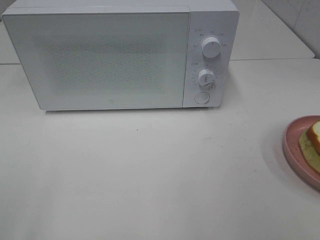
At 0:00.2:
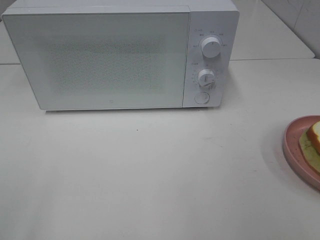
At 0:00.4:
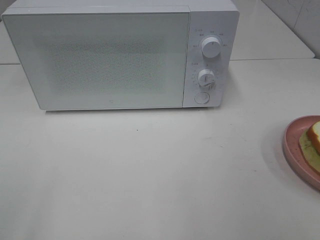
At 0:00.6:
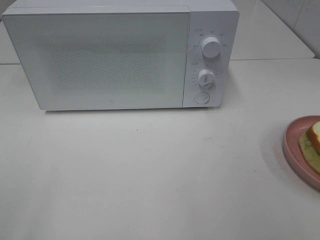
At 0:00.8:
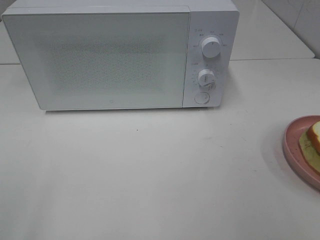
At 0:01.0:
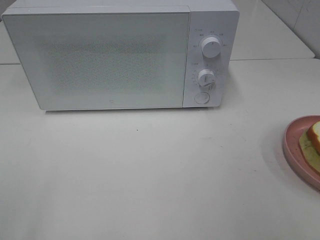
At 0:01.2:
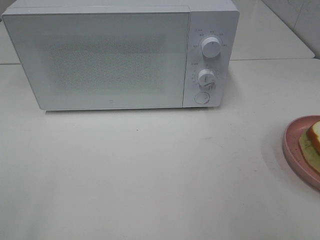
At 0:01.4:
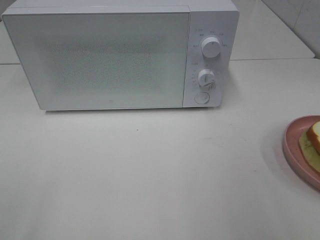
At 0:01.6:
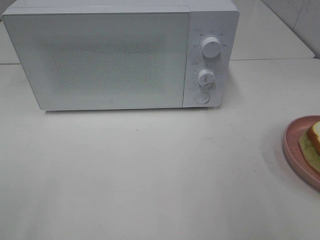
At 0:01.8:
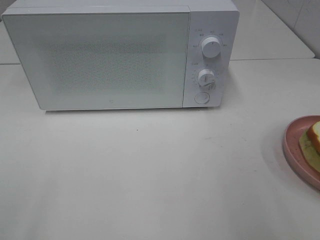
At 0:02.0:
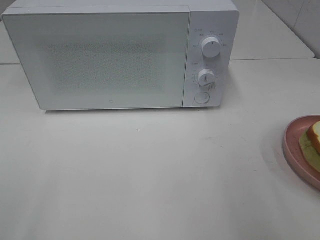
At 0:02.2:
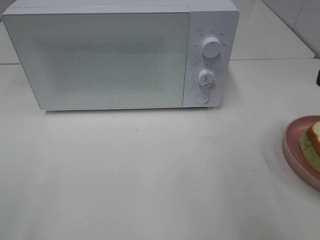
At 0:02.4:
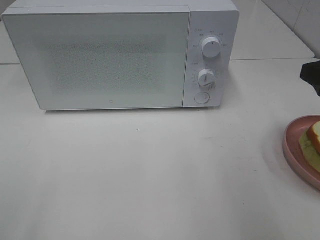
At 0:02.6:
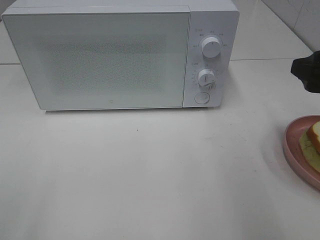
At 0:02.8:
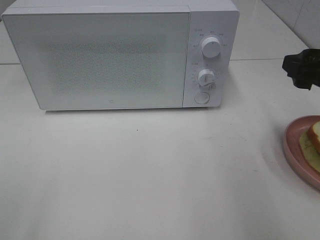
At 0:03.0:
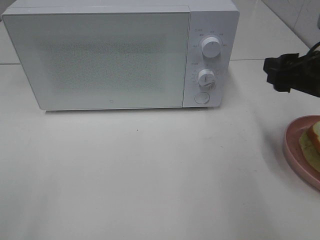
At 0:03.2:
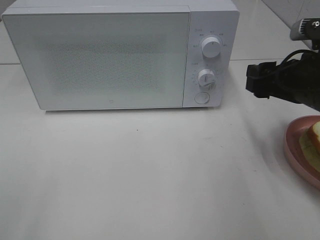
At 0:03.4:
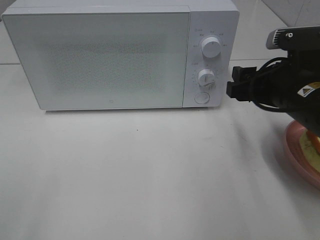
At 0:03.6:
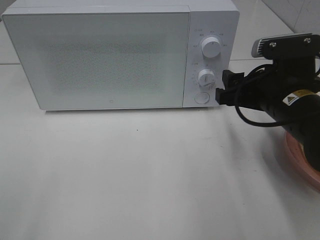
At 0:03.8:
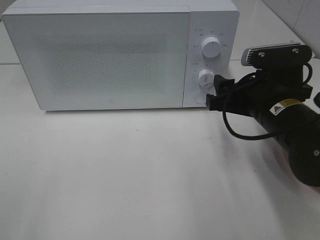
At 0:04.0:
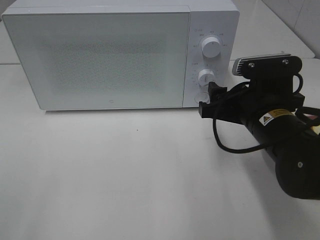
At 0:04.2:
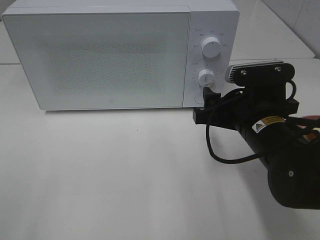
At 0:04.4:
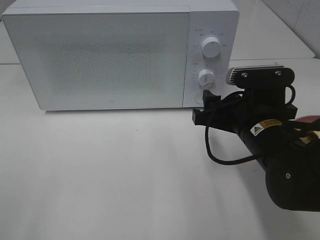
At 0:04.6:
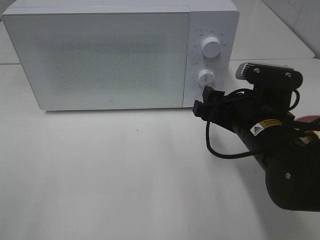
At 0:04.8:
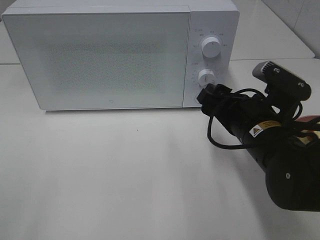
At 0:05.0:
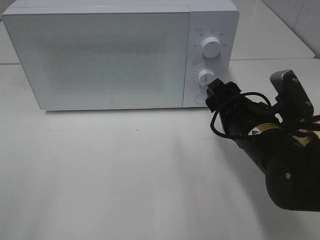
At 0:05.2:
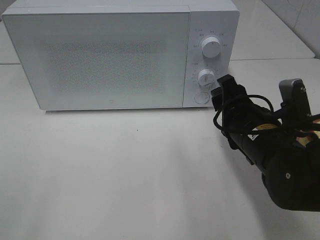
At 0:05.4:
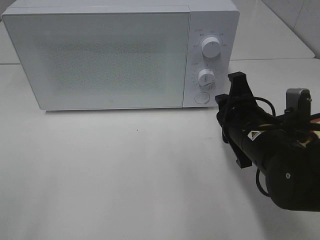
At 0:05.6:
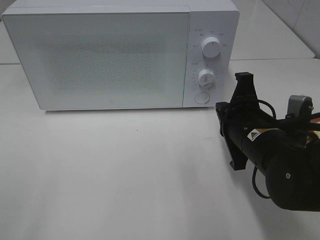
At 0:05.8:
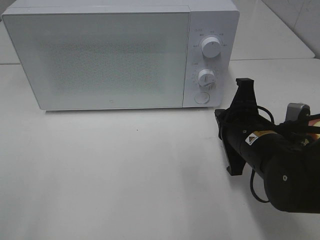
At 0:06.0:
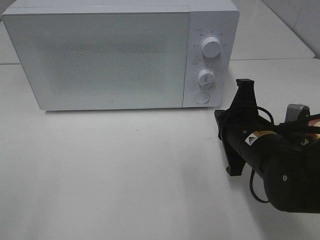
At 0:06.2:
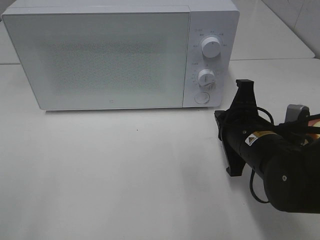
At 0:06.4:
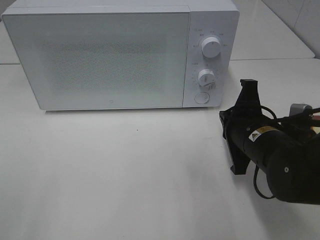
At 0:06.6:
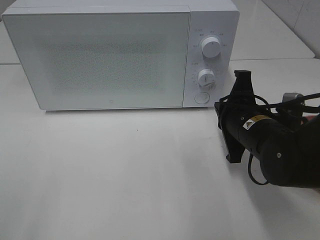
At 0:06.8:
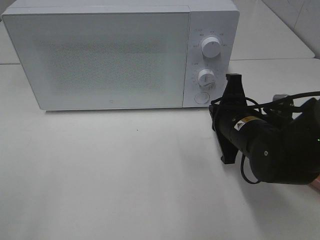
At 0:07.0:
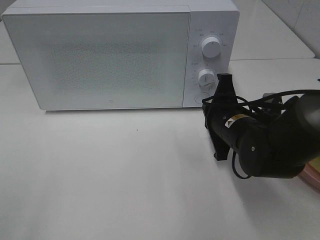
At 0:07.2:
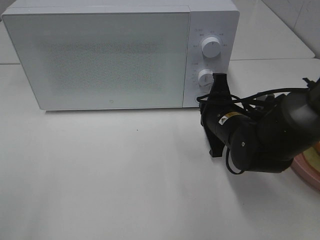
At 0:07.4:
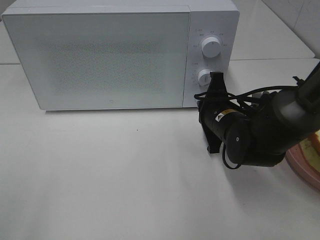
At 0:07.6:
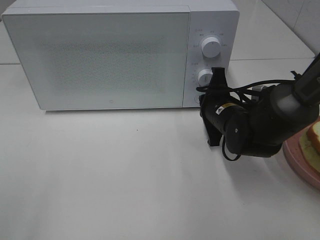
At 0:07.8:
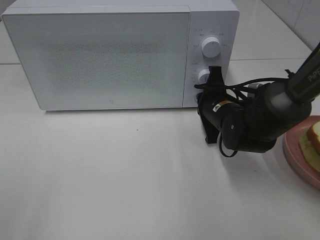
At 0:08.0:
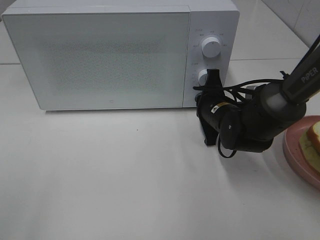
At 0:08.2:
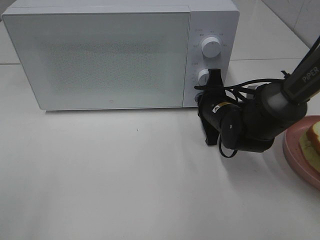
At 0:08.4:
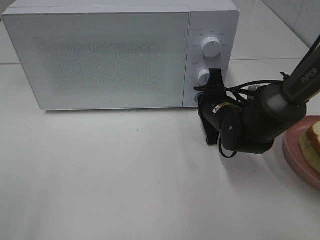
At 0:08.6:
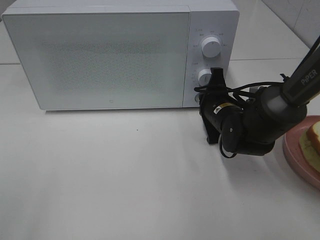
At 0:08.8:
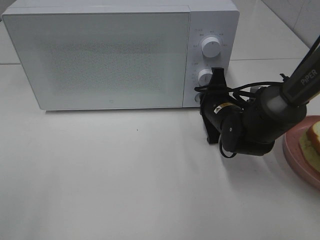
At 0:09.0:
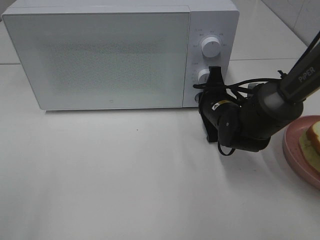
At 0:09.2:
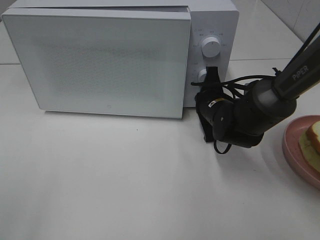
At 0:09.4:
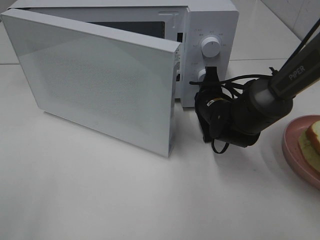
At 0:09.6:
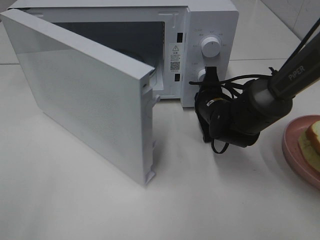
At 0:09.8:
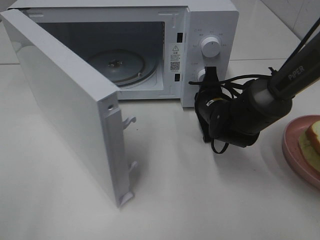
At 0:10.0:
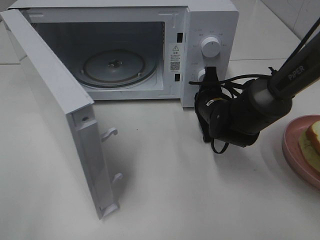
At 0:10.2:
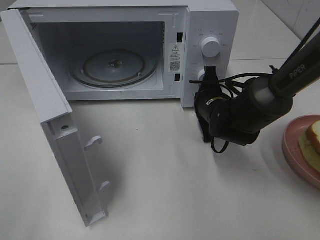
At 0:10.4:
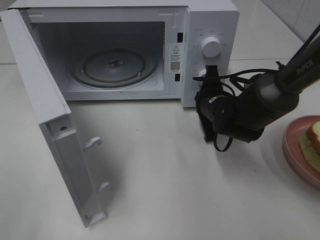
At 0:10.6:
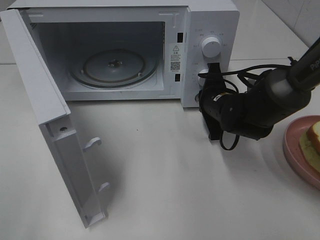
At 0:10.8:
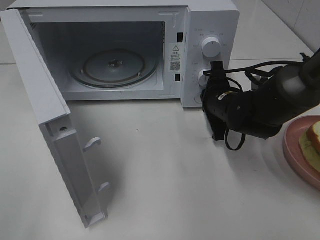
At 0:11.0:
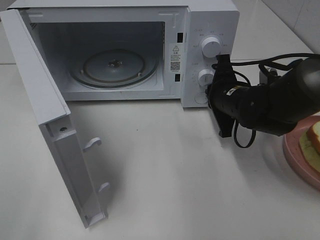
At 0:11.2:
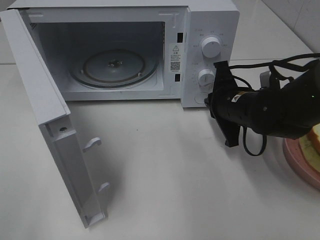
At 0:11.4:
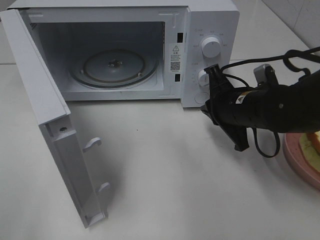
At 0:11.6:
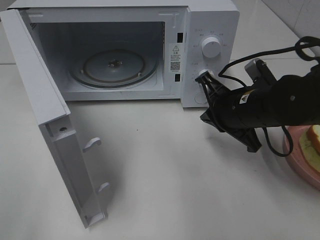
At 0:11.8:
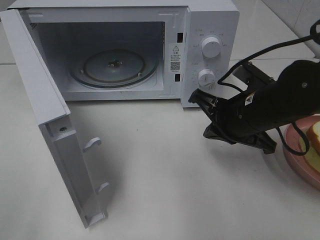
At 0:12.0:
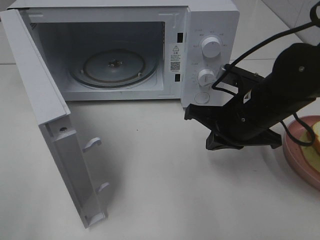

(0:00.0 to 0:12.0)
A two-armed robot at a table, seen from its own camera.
Task of the whole recording: Heat Sandwich.
Step, 0:00.0 - 0:11.0: Right hand: press the switch.
0:01.6 - 0:03.0: The right gripper shifts approximately 15 cm forward and downward.
0:03.0 - 0:04.4: The right gripper heads to the left and downward, covering roughly 10 cm.
0:04.4 - 0:06.0: The right gripper closes its fingers.
0:06.0 - 0:07.6: The right gripper heads forward, covering about 10 cm.
0:07.6 - 0:09.0: The grippers move only a little.
0:10.4 - 0:12.0: The right gripper shifts approximately 10 cm backward and upward.

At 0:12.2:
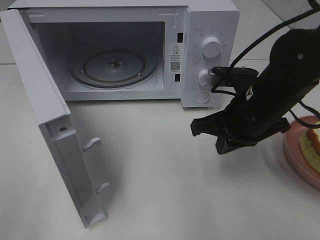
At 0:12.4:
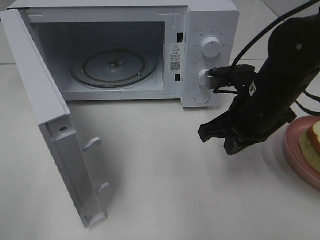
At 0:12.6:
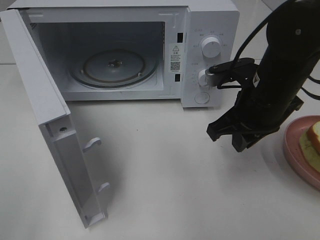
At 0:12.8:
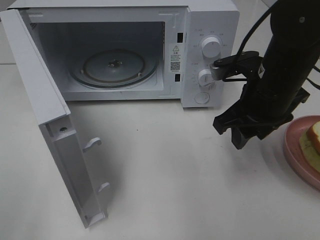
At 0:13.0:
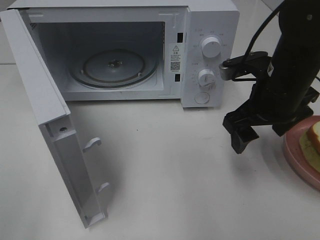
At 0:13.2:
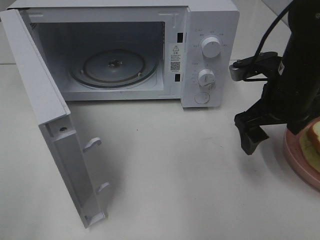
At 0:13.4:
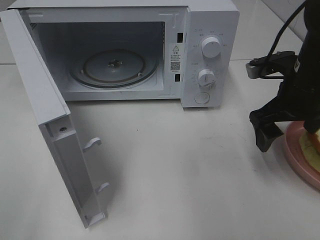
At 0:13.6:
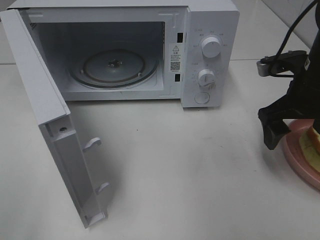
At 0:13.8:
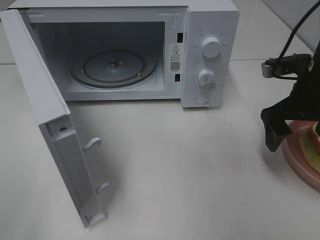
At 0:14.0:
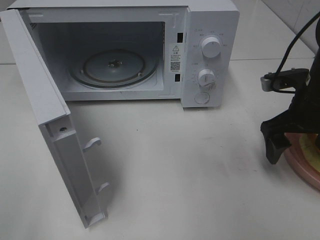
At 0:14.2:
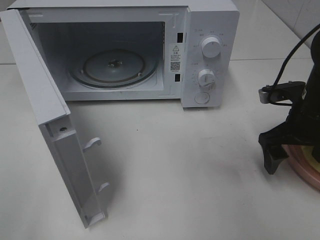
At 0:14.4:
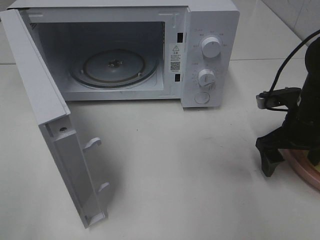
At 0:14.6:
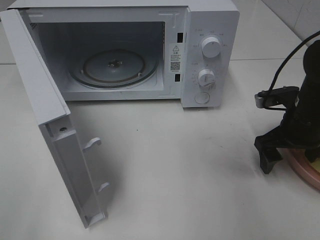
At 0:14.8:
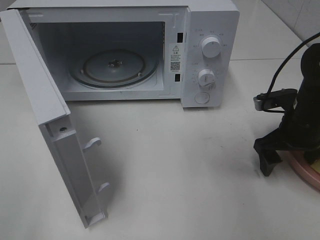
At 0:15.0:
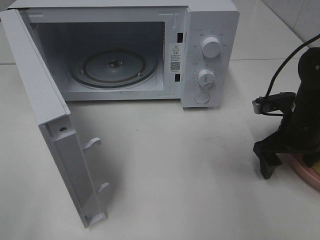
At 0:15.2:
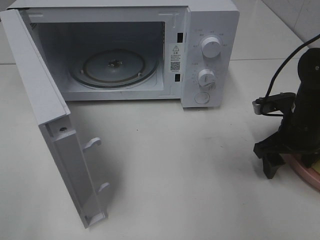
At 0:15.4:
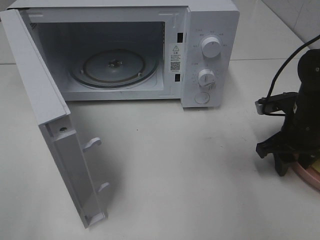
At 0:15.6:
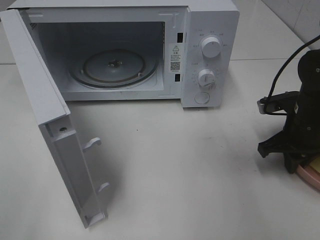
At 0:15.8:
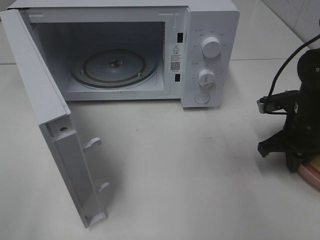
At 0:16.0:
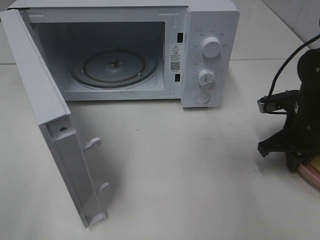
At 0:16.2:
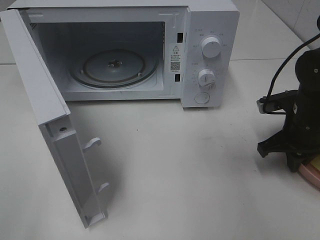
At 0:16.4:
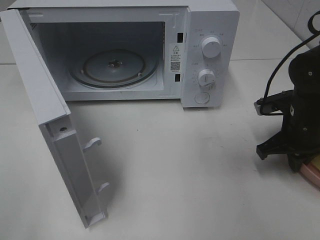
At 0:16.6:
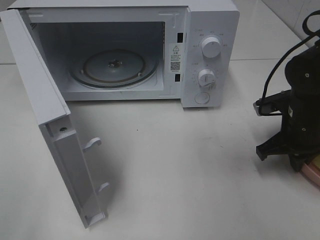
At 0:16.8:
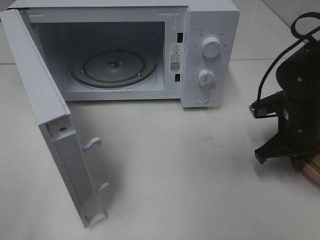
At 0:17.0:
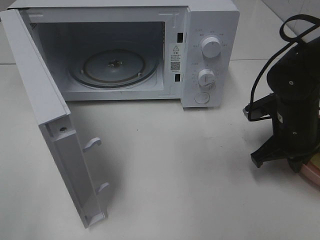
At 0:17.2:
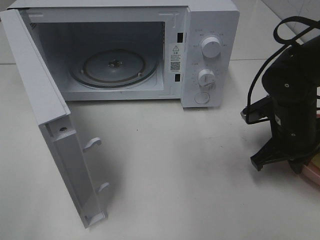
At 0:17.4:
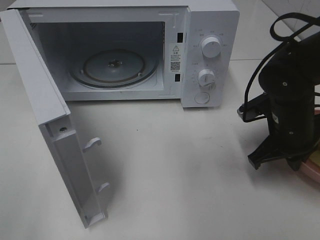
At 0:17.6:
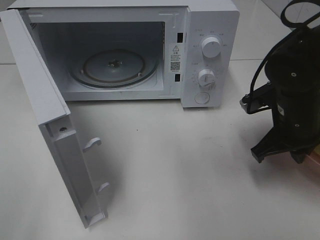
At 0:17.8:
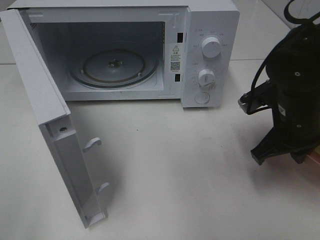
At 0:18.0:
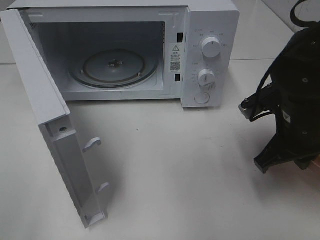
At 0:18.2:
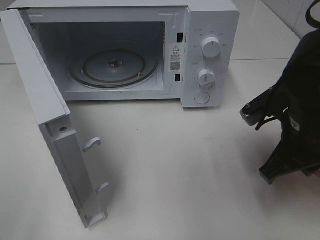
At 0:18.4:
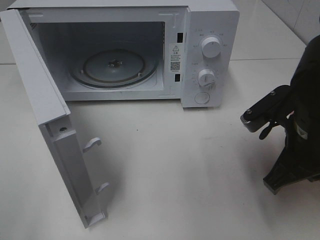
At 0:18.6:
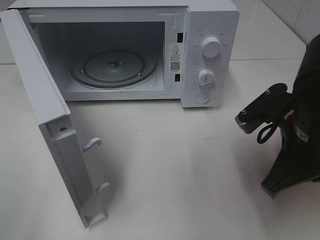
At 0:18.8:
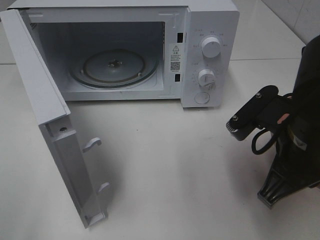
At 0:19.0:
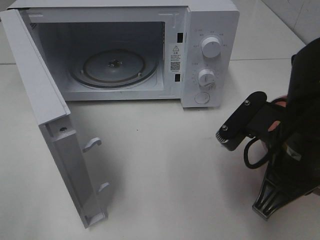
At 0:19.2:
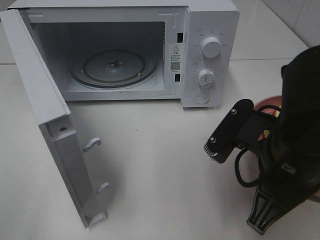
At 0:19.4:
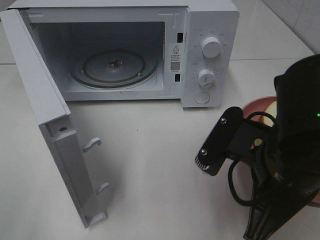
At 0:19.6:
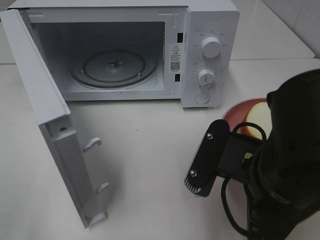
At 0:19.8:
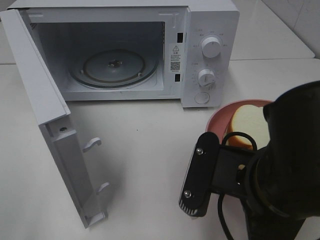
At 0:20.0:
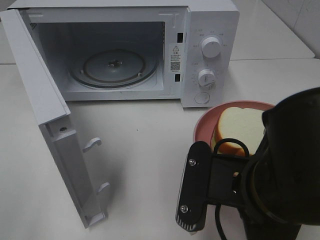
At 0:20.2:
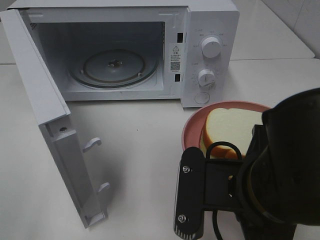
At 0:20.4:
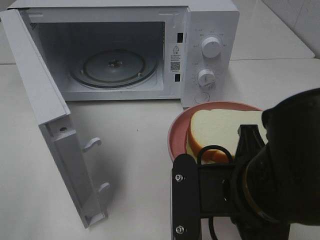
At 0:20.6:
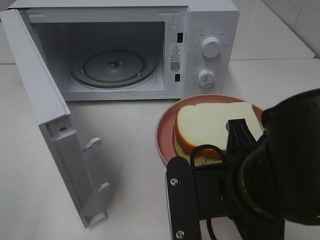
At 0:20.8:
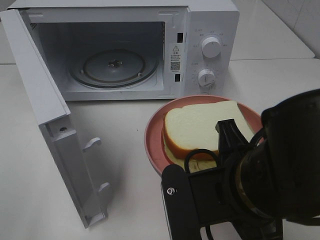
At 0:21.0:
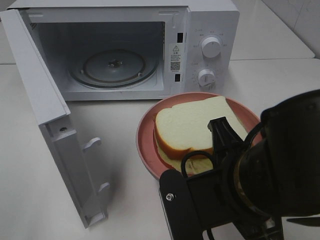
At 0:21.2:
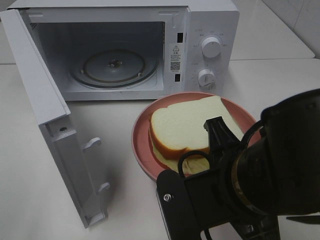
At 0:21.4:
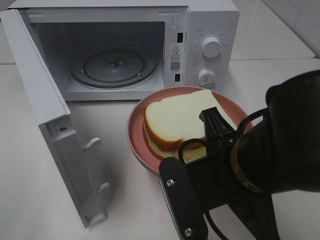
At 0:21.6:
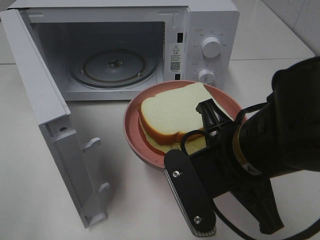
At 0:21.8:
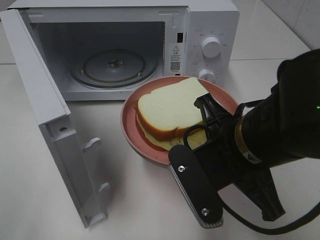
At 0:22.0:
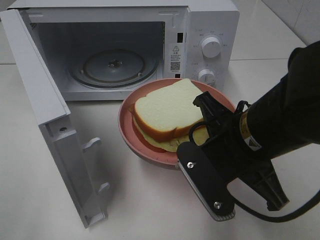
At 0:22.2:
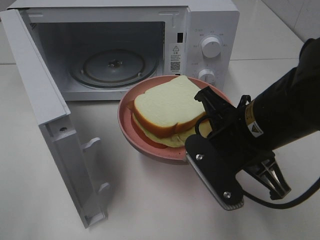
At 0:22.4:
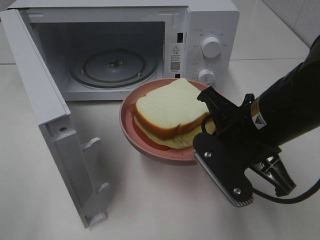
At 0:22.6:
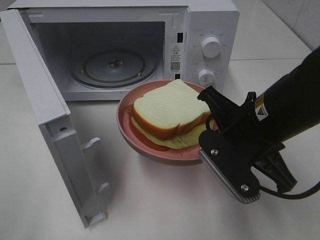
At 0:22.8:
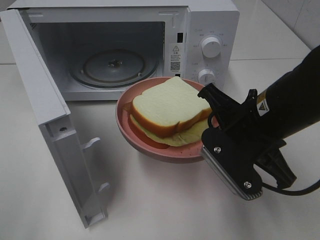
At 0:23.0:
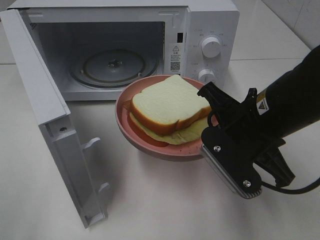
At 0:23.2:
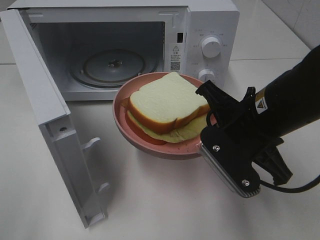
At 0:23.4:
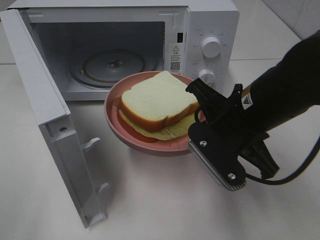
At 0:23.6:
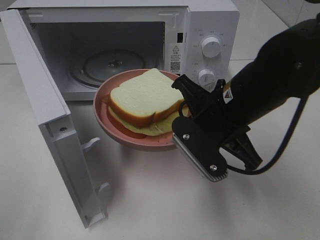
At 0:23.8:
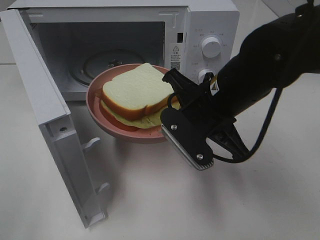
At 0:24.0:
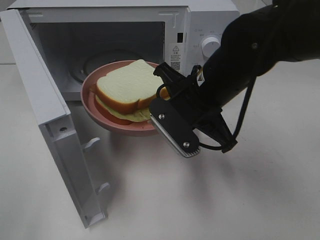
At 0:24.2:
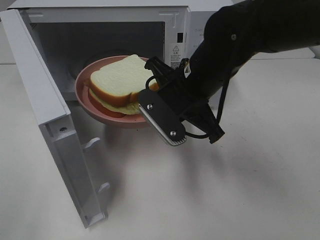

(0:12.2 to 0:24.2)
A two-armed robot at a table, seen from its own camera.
Task of the whole recording: Heat Sandwich.
Step, 0:12.2 - 0:16.0: Right hand: grab the plate with the sandwich.
0:12.2 - 0:13.8: The right gripper travels to the right by some 10 cm, and opens its fingers.
0:13.8 - 0:15.2: The right gripper travels downward by roughly 10 cm.
0:15.2 - 0:16.6: The right gripper closes up.
0:16.6 - 0:18.2: The right gripper heads backward, upward and to the left, covering some 10 cm.
0:18.2 - 0:19.8: The right gripper shifts some 15 cm backward and to the left.
0:21.2 - 0:22.6: The right gripper is displaced forward by some 10 cm.
0:22.6 - 0:24.2: The right gripper travels forward and to the left by about 10 cm.
